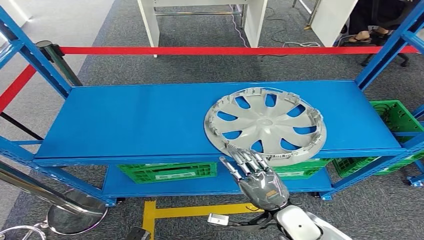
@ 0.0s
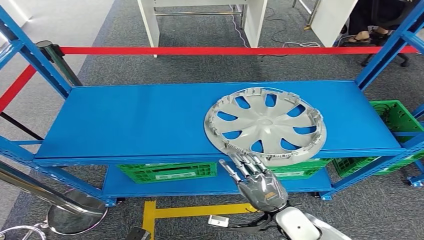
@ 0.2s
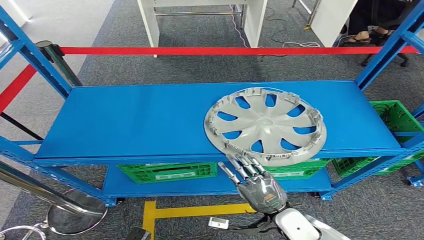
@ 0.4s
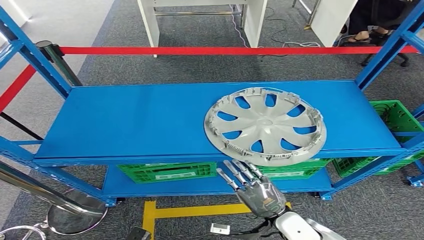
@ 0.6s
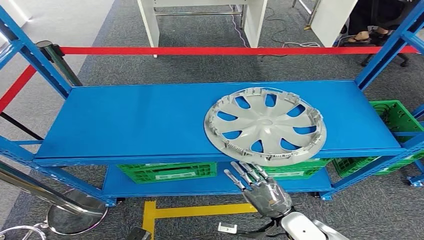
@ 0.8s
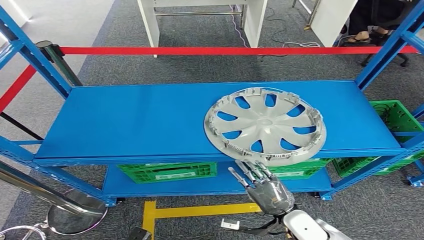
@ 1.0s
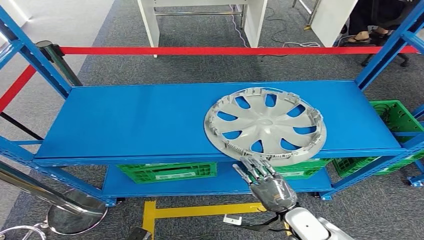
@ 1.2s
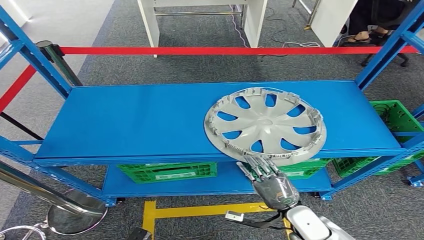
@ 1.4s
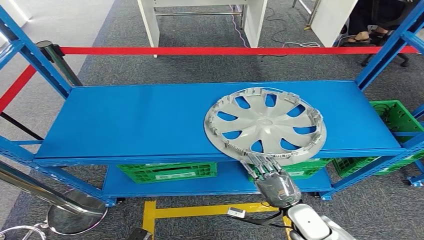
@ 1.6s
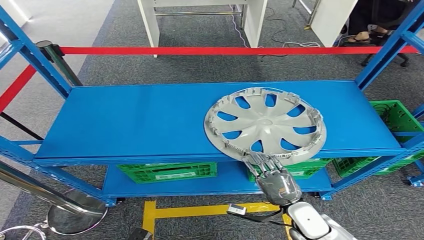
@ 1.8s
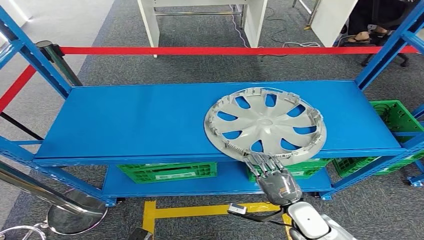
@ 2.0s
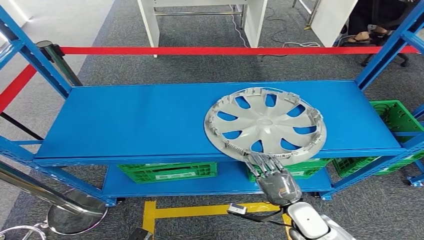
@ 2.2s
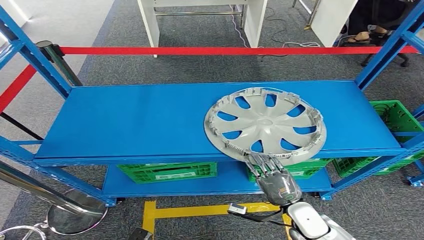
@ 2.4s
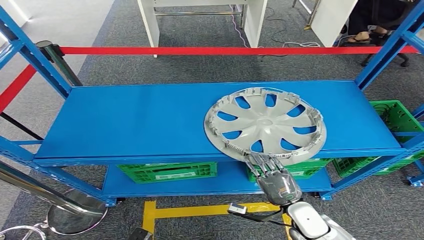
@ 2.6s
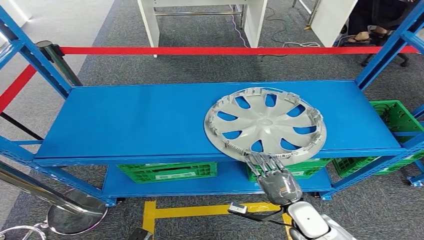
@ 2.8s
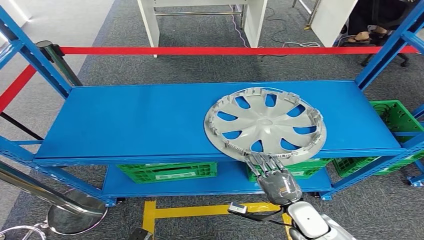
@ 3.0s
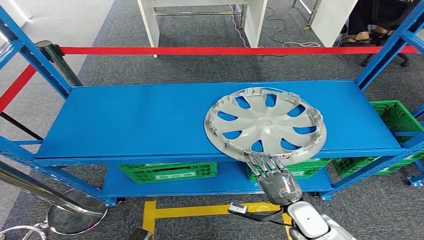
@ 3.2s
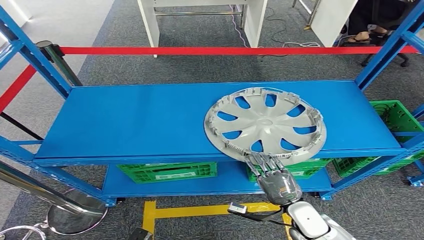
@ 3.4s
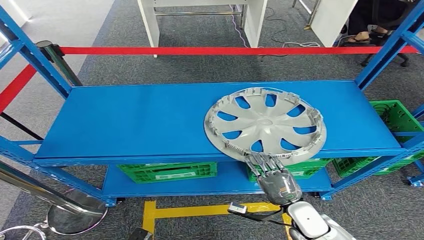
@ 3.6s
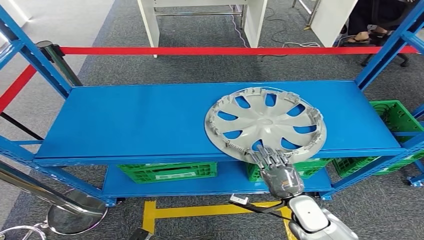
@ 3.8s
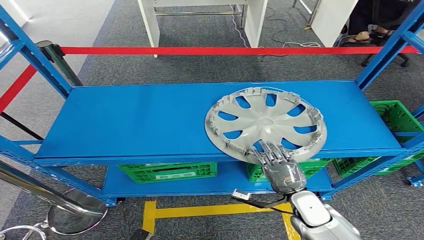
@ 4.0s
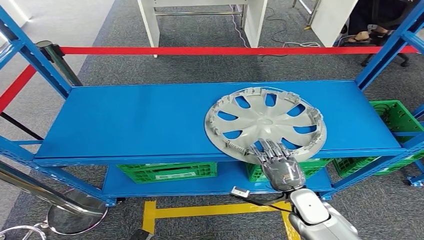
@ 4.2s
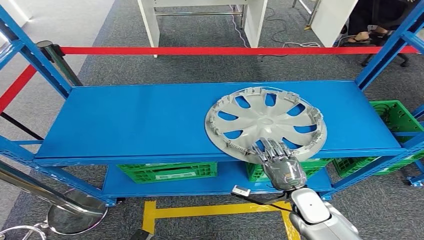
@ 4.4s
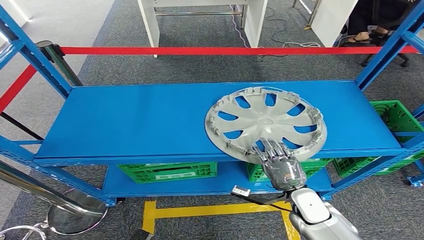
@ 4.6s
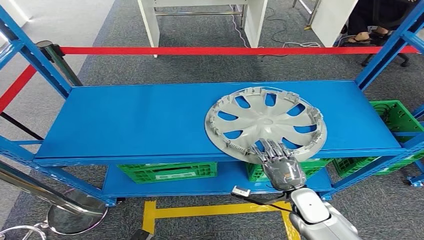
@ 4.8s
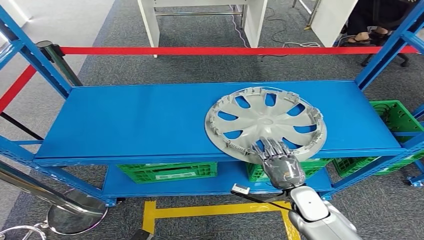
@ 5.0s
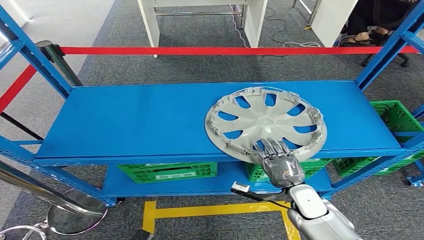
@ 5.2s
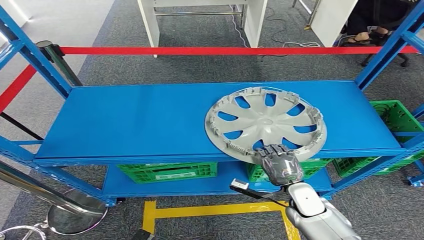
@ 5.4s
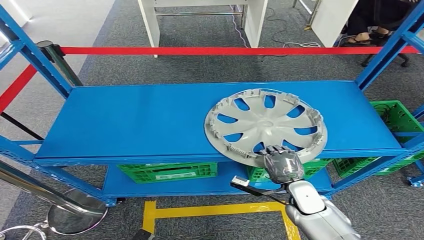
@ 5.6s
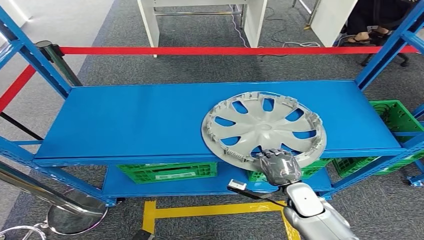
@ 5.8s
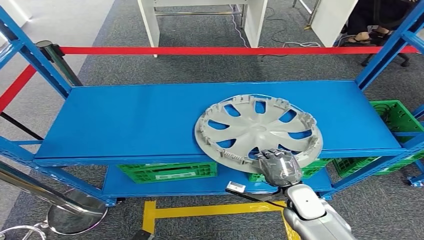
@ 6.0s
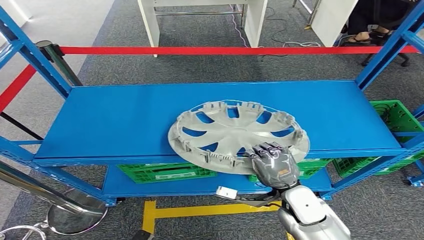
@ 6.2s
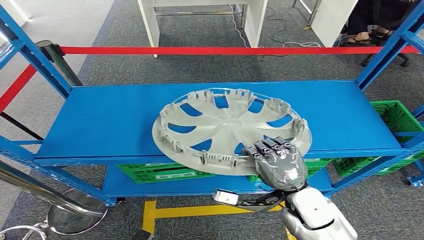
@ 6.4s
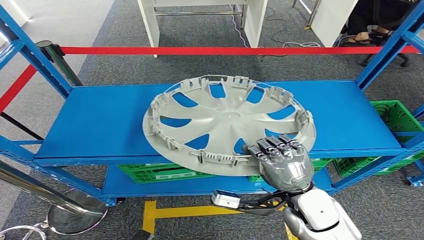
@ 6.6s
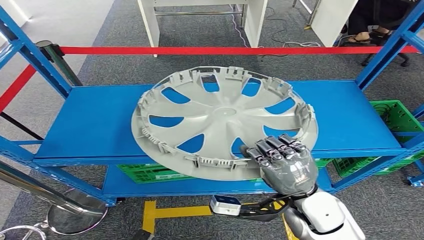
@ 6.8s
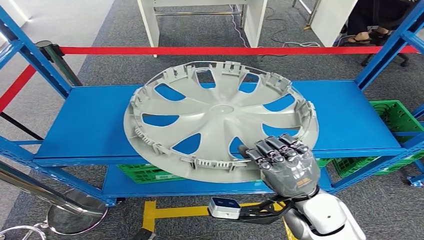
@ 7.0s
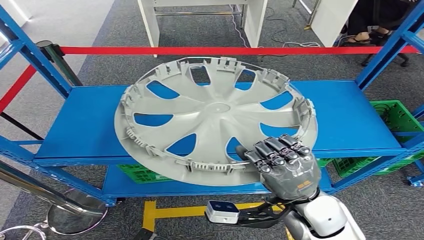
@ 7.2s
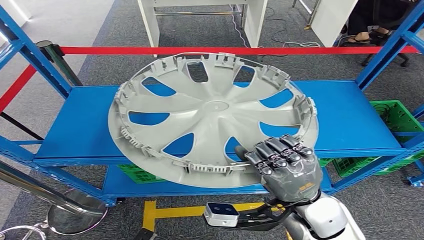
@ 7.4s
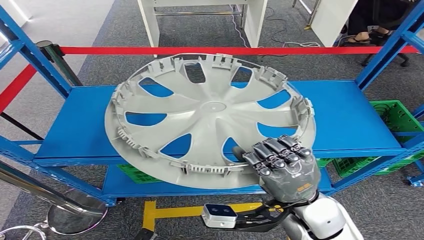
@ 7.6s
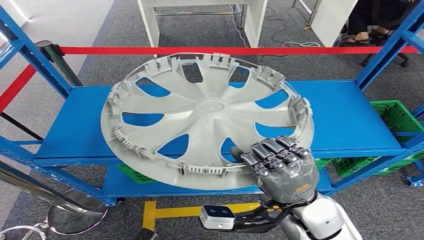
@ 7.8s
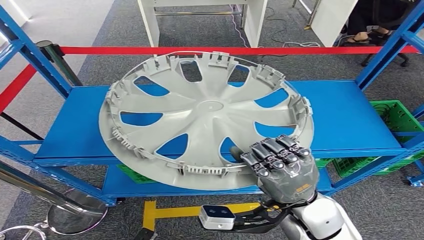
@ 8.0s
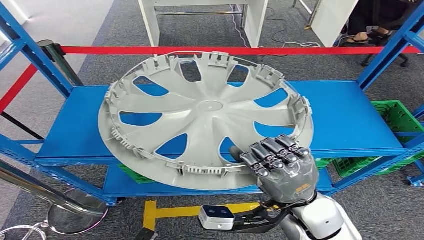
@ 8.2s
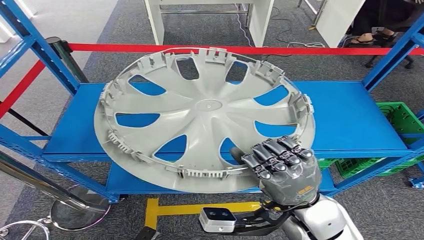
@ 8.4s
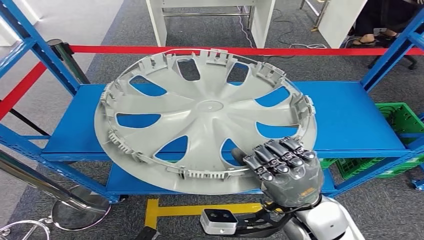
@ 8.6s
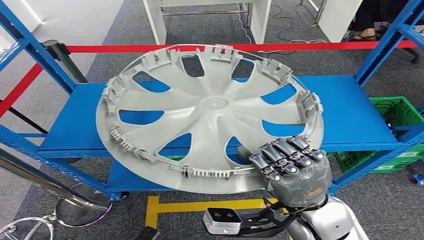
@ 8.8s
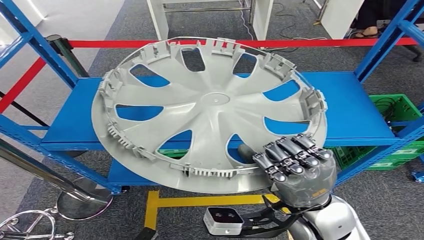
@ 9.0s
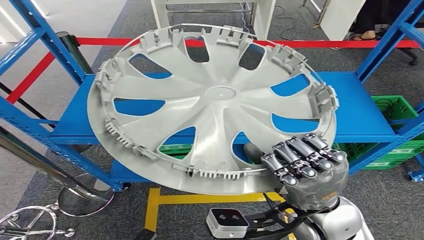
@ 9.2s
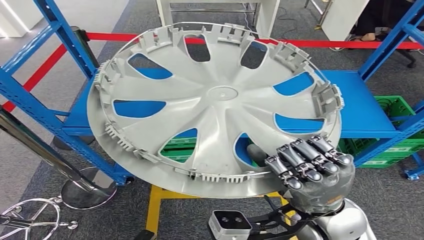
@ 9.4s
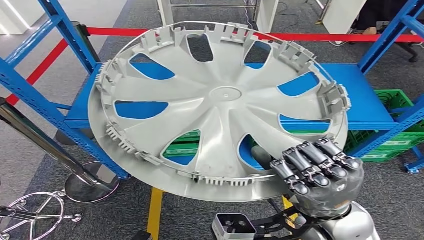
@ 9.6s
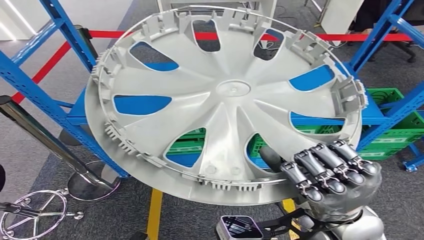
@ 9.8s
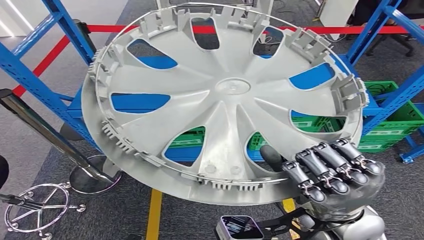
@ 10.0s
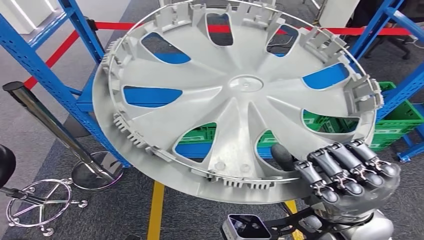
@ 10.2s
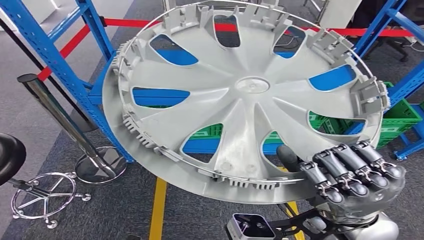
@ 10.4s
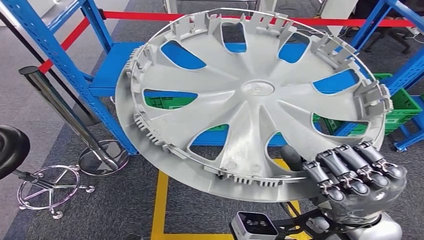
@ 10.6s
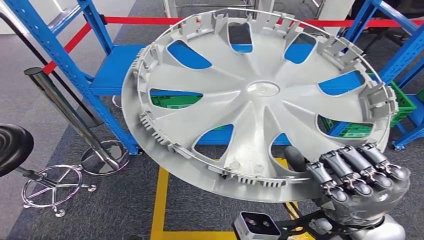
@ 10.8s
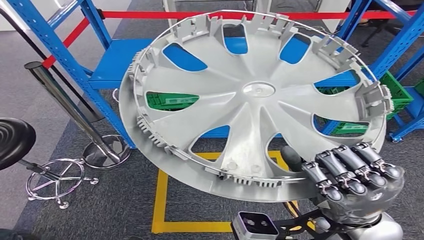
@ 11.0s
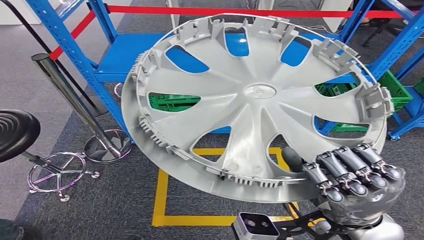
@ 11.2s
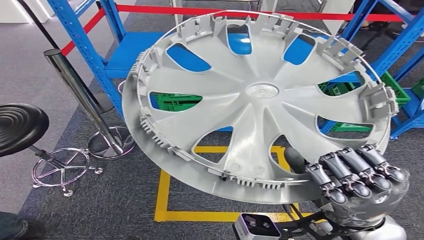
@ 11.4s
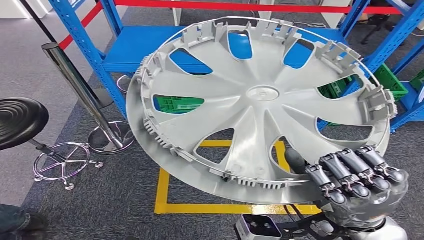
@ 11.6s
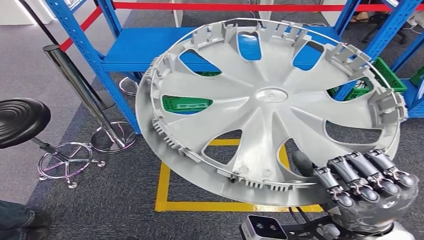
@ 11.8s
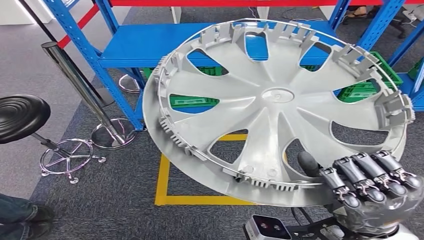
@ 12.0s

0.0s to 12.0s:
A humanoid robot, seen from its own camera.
Step, 0.0s to 6.8s: Pick up the small component from the shelf.
0.0s to 1.6s: The right hand moves some 5 cm.
1.6s to 3.0s: The two hands keep their place.
3.0s to 6.0s: The hands make only small movements.

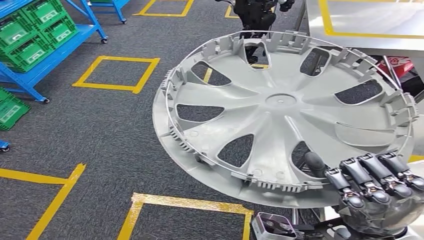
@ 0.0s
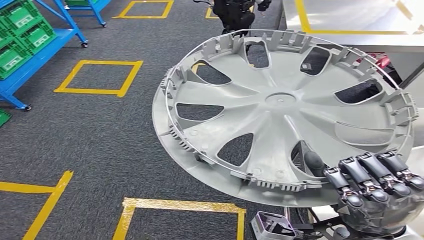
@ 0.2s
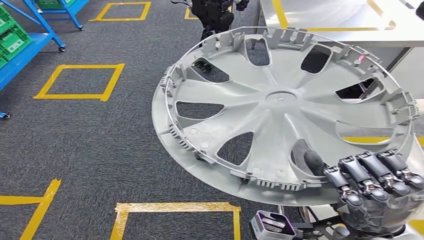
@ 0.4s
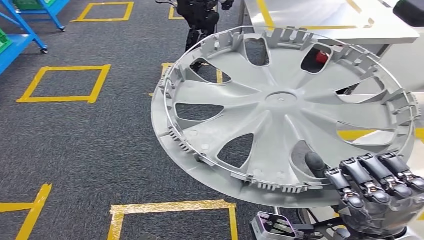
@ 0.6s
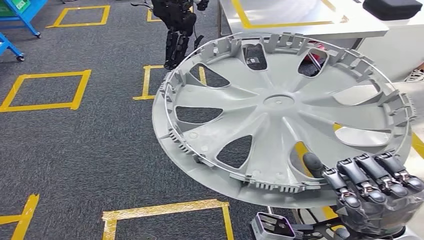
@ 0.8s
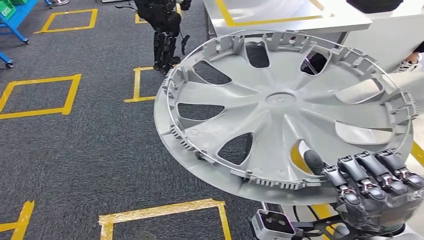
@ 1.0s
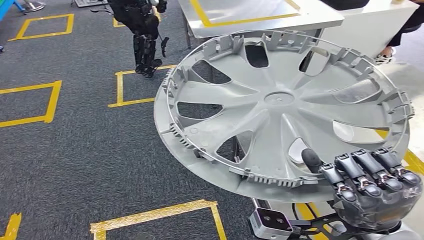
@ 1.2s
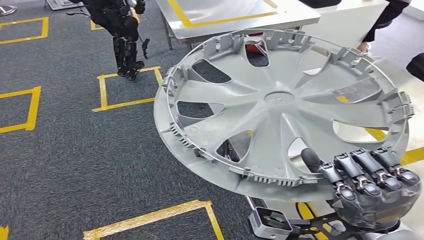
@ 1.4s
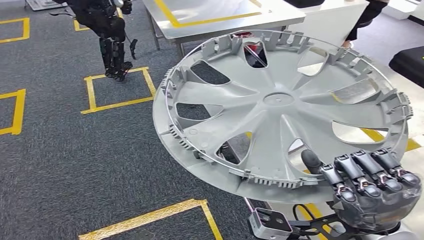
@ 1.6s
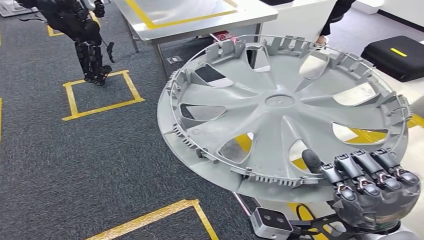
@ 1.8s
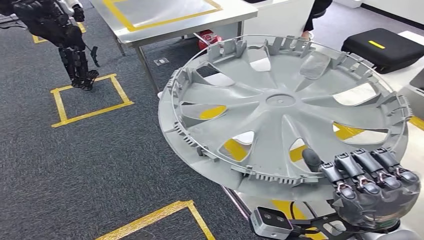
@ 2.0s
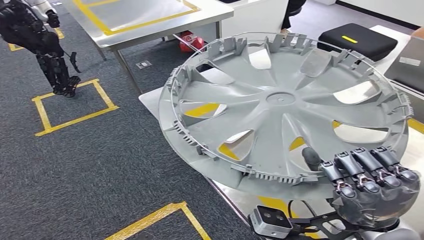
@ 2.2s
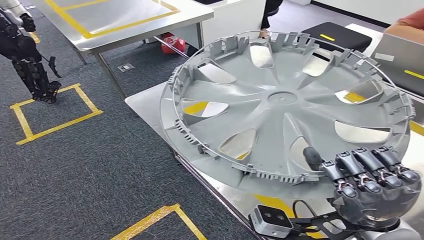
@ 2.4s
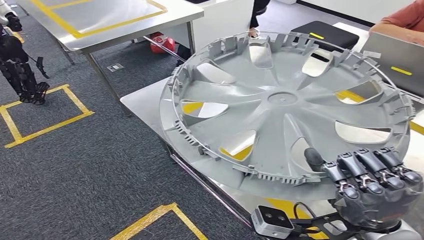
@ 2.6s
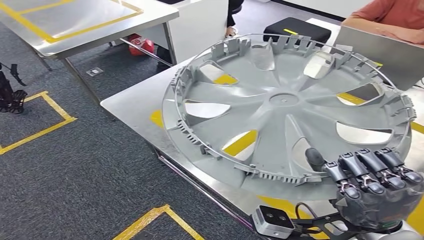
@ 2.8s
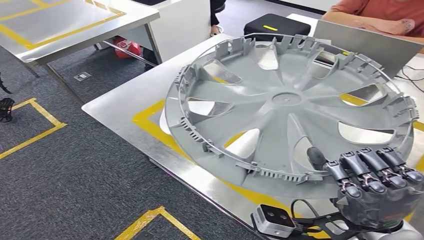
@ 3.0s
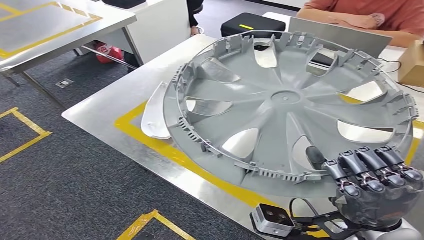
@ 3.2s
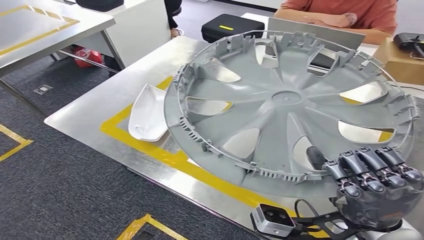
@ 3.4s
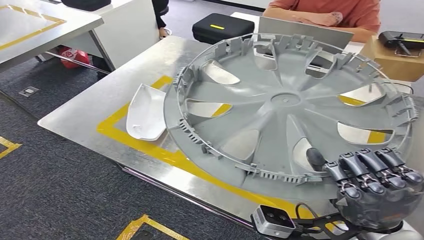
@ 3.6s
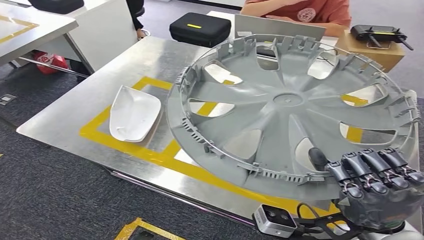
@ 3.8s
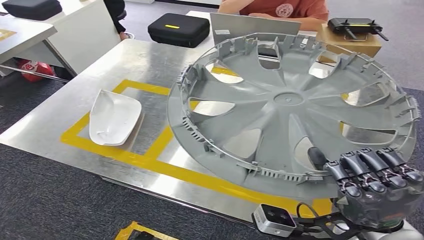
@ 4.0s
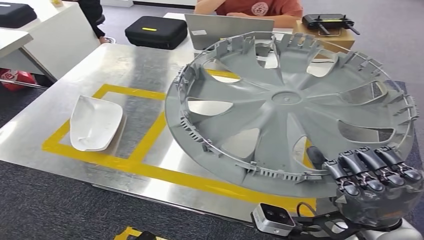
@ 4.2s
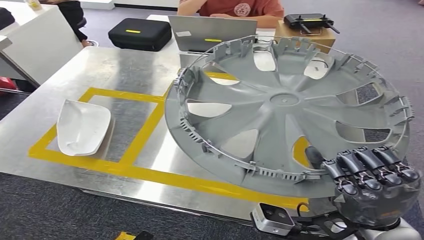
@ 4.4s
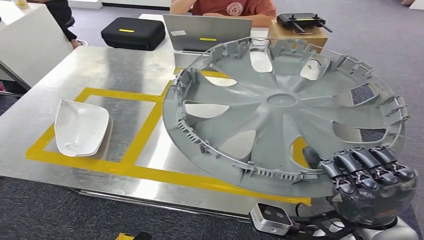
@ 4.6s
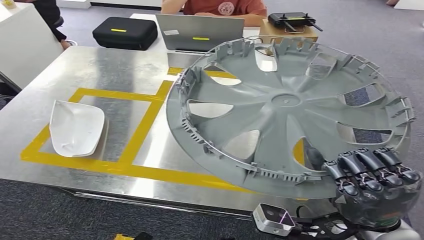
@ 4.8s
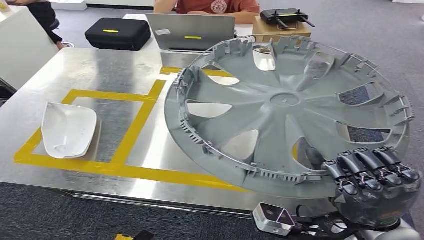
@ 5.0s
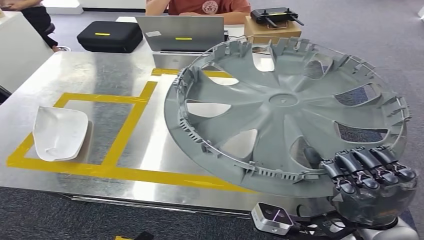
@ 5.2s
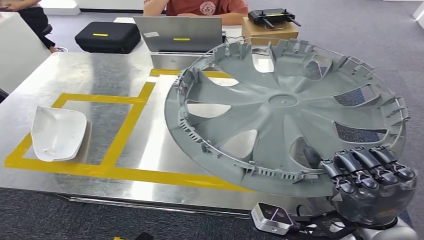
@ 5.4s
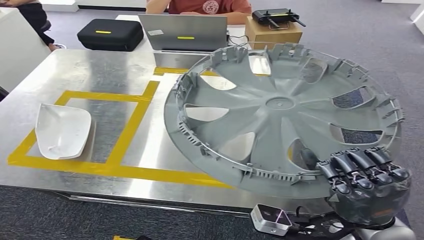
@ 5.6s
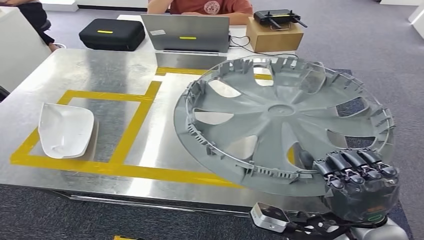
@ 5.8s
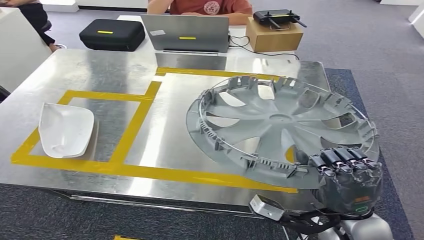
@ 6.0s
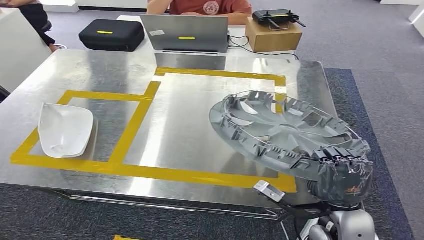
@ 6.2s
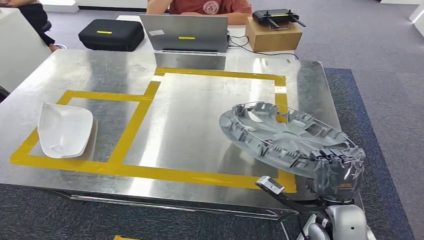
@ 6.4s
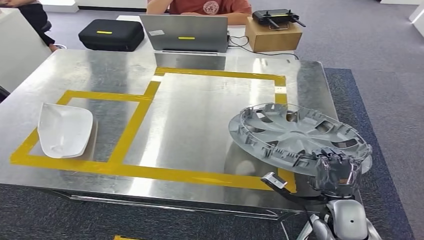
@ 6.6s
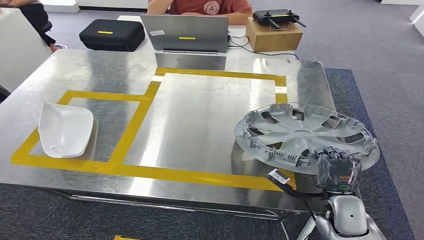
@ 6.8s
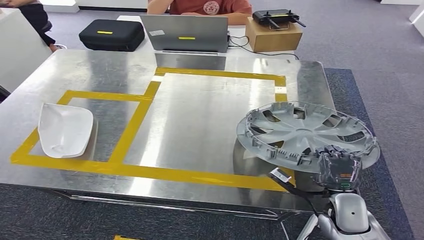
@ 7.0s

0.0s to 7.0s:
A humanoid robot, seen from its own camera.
Step, 0.0s to 5.6s: Move the small component to the workbench.
